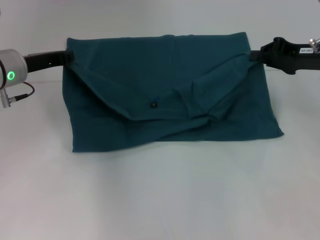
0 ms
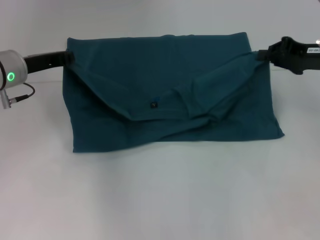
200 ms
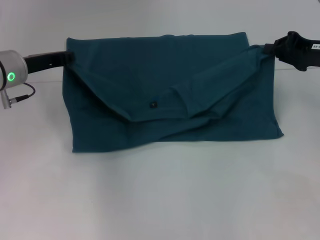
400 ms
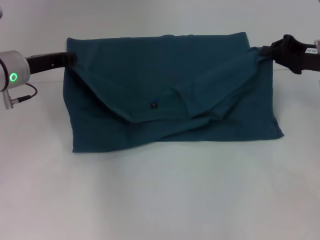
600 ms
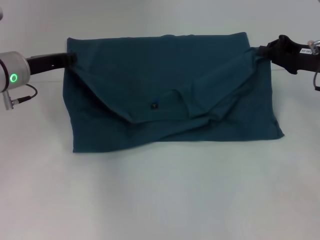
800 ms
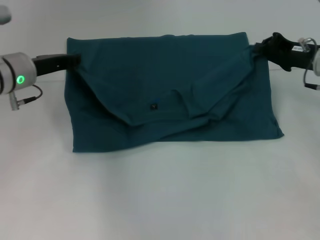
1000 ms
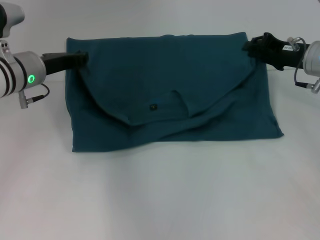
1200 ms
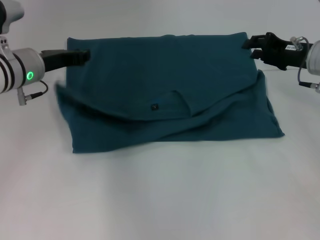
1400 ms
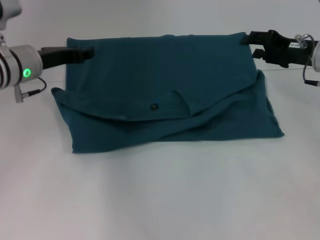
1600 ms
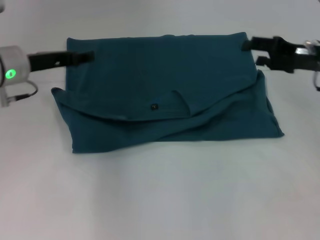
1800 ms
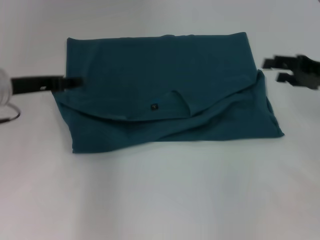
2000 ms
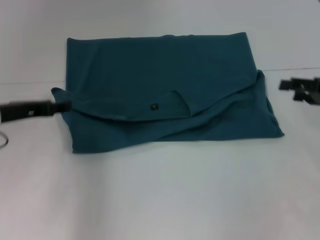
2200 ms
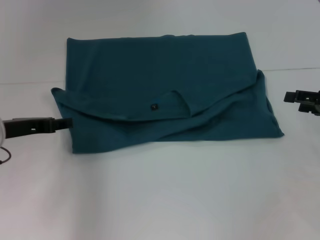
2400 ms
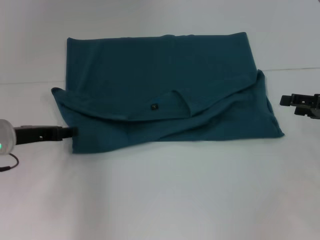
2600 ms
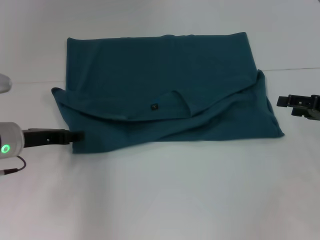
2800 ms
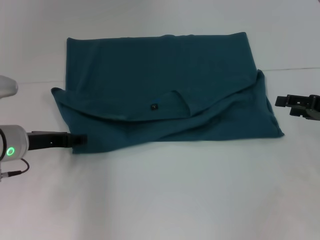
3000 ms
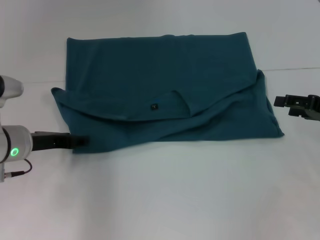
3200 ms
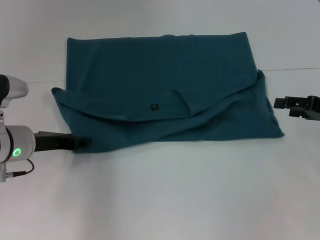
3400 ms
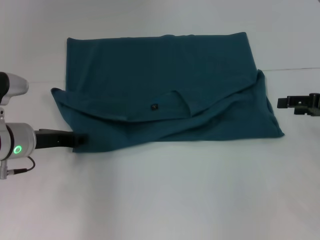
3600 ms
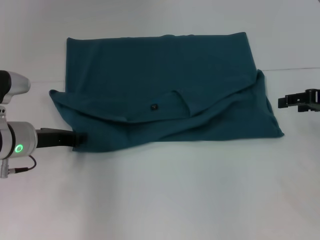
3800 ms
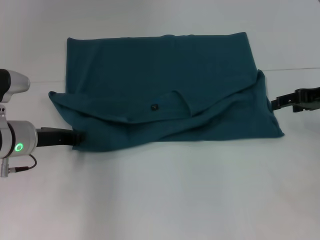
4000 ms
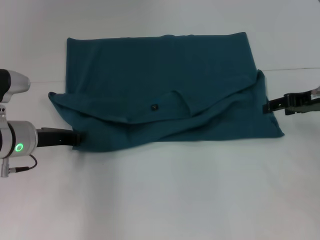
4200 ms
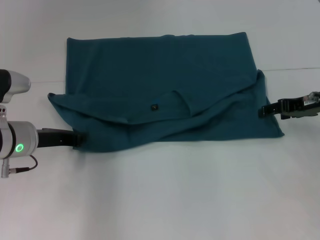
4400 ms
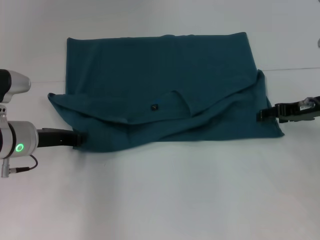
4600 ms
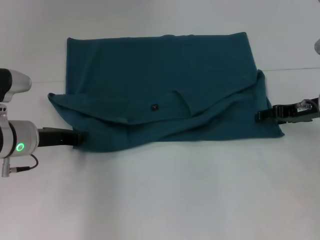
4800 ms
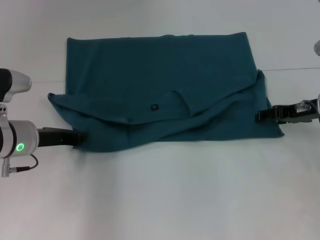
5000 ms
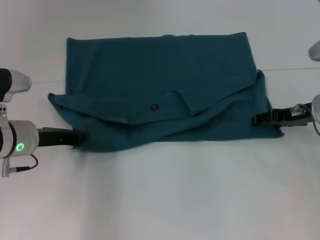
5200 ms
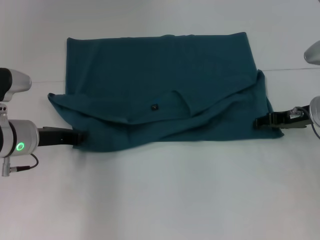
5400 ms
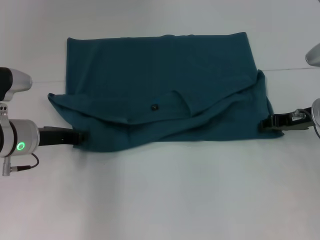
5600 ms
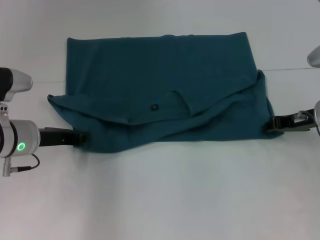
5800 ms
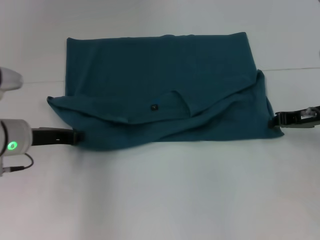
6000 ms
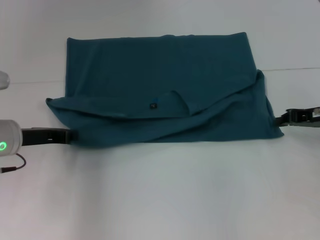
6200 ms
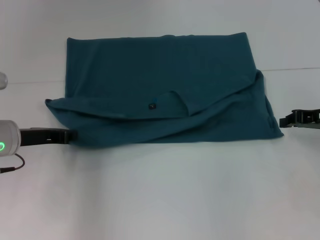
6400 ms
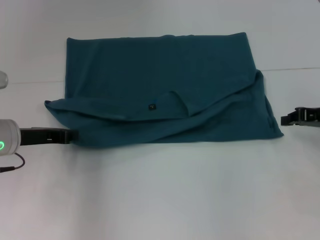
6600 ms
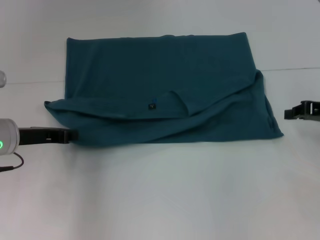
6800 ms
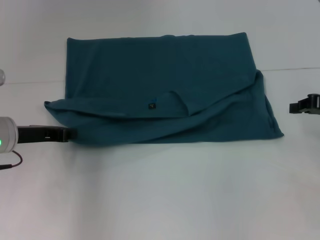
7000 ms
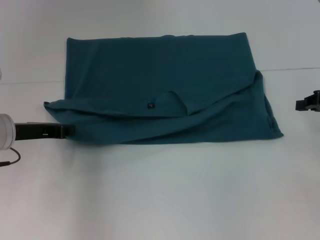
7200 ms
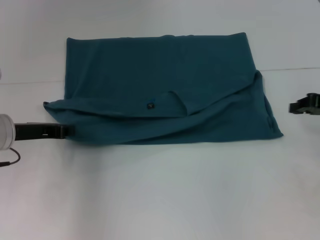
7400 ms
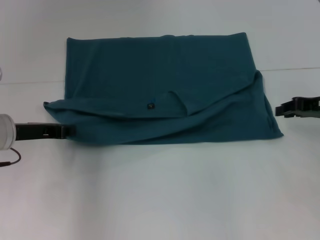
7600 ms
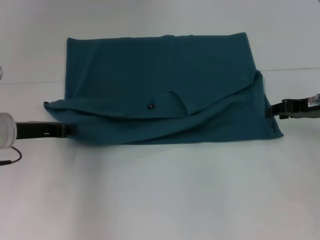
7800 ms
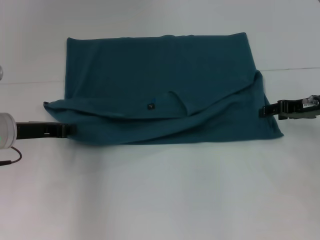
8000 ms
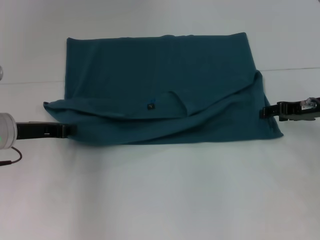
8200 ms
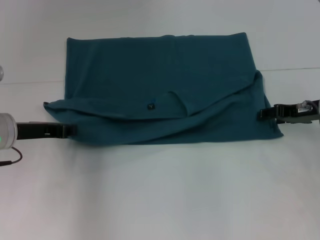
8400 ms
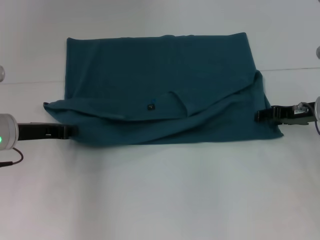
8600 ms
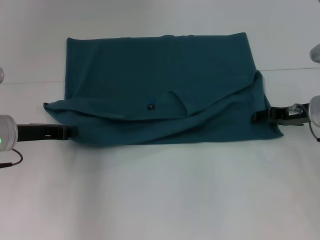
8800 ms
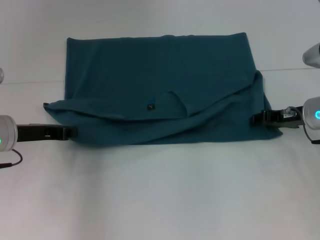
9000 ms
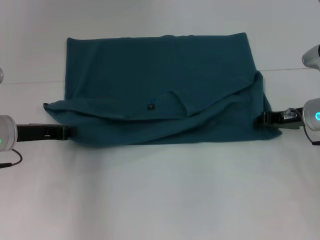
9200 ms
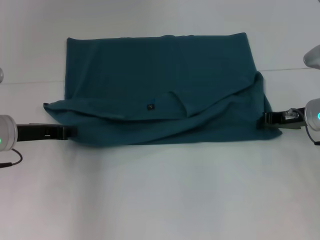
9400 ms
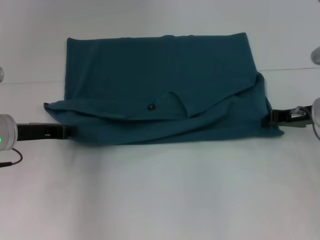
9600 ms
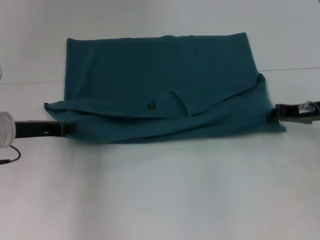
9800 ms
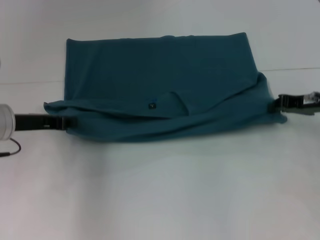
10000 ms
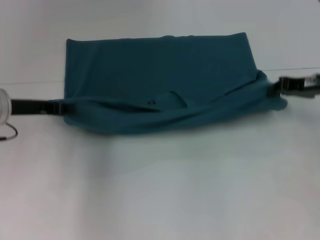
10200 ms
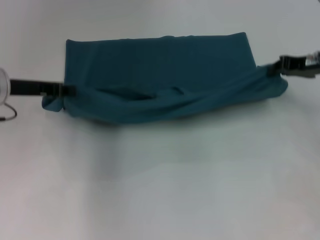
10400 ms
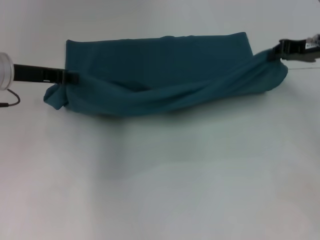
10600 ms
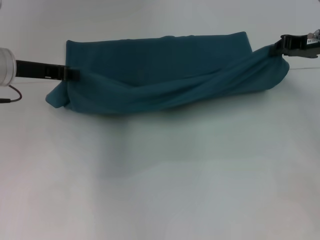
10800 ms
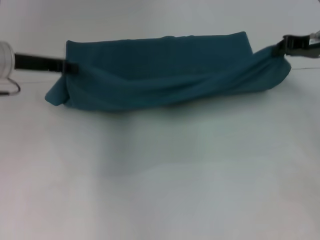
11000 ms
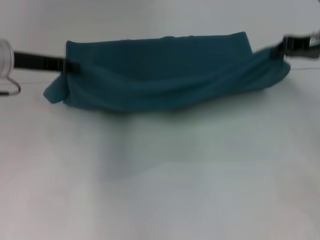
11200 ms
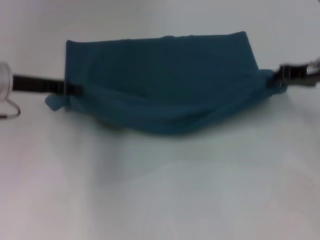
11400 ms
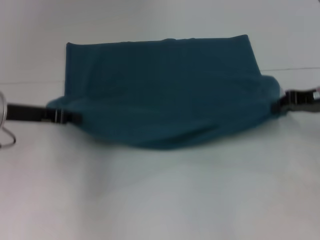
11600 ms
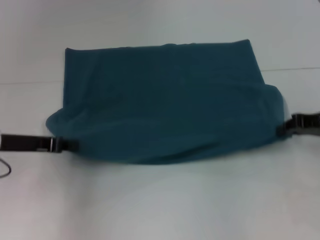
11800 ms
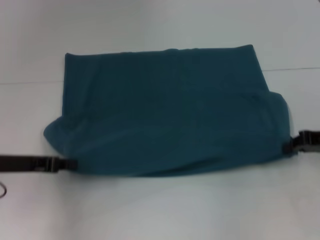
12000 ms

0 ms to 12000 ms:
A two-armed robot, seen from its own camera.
0 ms to 1600 ms: The left gripper opens up. Meanwhile the right gripper opens its fingers.
1600 ms to 3000 ms: The right gripper moves backward and to the right, some 10 cm. Meanwhile the left gripper moves backward and downward, some 10 cm.
3000 ms to 4400 ms: The left gripper closes up. The right gripper heads forward and to the left, covering approximately 10 cm.
4400 ms to 6000 ms: The right gripper closes its fingers.
7600 ms to 9000 ms: The right gripper shifts by some 5 cm, and opens its fingers.
9000 ms to 10400 ms: The grippers both shift upward by approximately 10 cm. The right gripper closes.
10400 ms to 12000 ms: The grippers both shift backward and downward by approximately 10 cm.

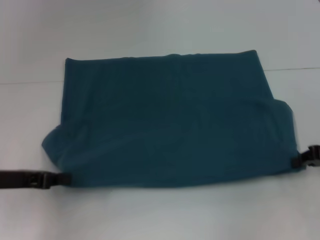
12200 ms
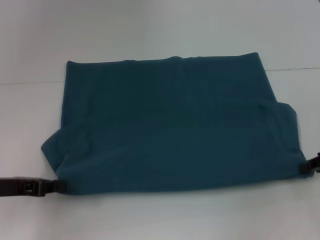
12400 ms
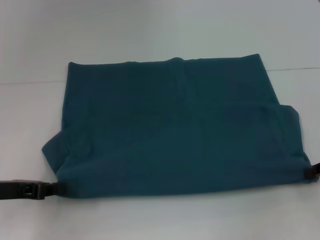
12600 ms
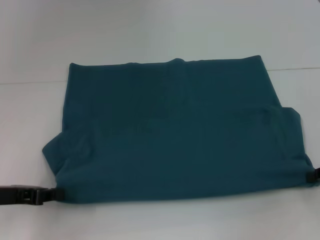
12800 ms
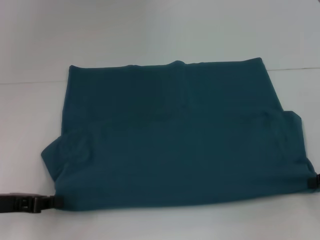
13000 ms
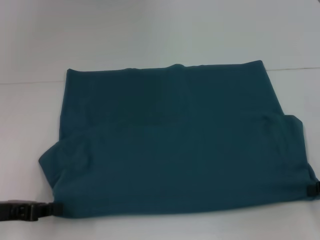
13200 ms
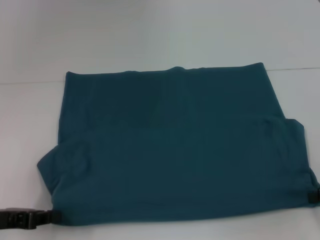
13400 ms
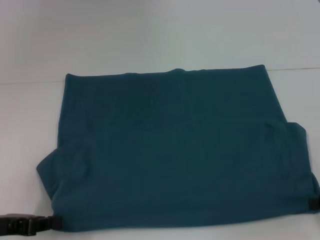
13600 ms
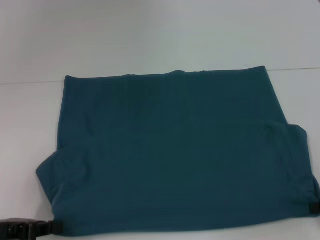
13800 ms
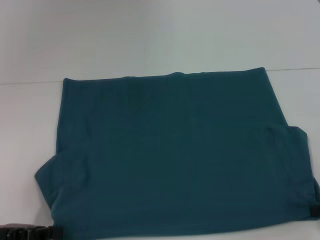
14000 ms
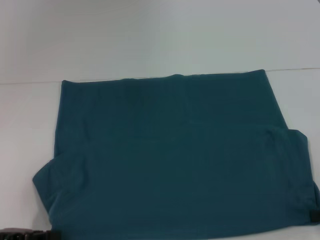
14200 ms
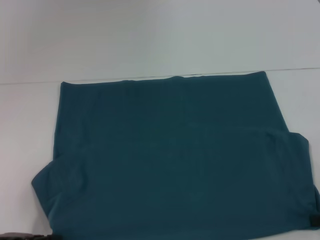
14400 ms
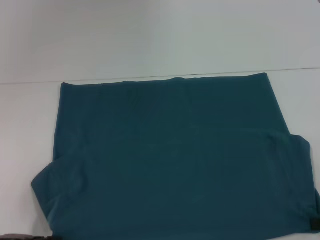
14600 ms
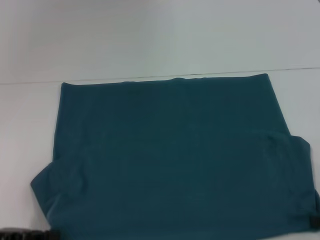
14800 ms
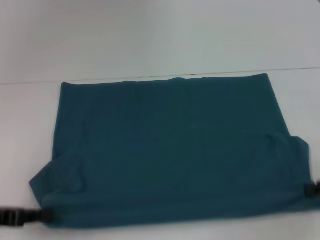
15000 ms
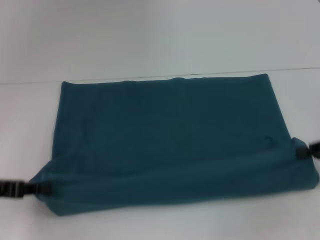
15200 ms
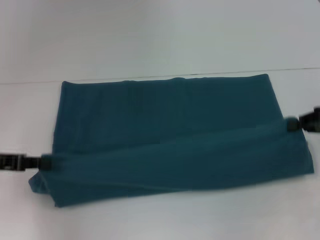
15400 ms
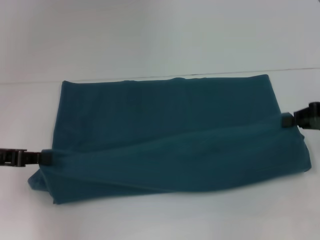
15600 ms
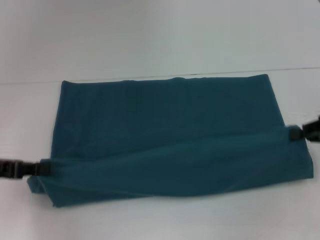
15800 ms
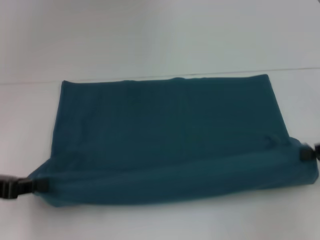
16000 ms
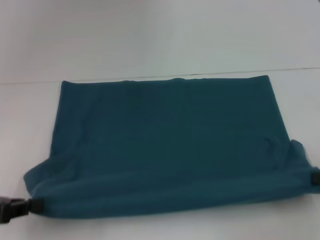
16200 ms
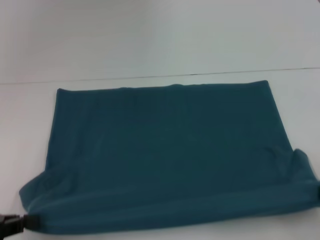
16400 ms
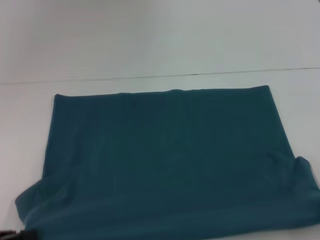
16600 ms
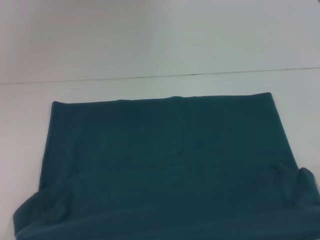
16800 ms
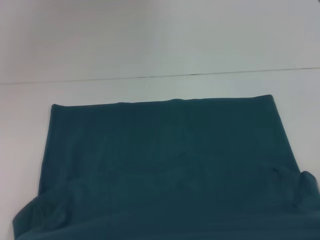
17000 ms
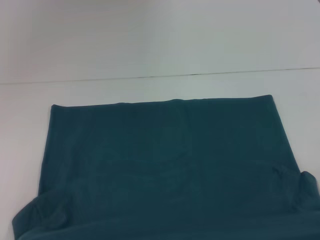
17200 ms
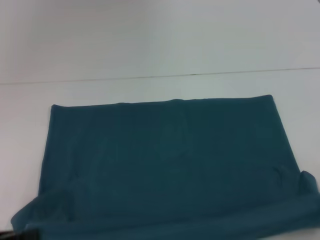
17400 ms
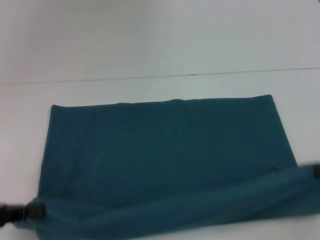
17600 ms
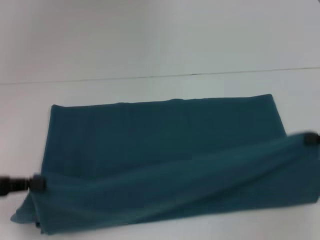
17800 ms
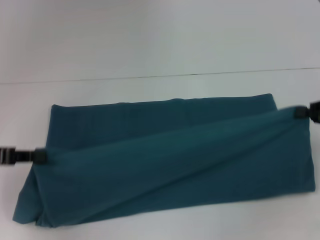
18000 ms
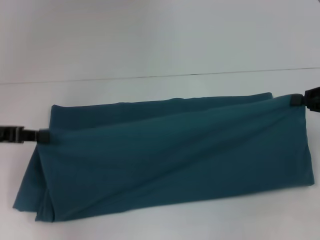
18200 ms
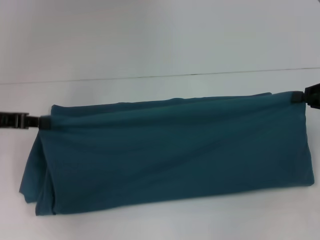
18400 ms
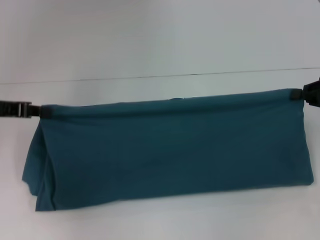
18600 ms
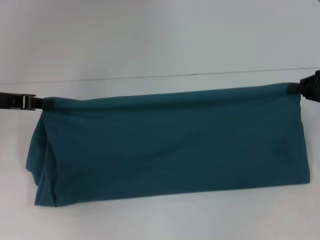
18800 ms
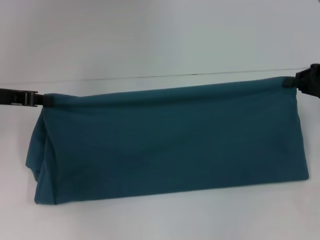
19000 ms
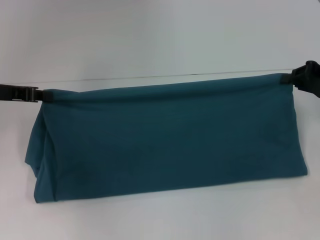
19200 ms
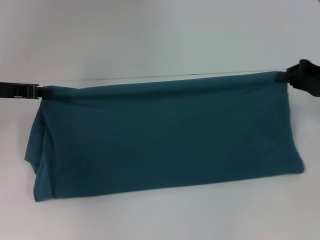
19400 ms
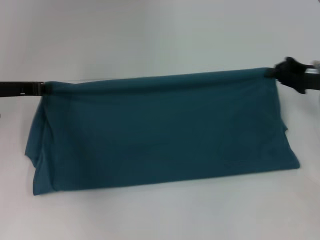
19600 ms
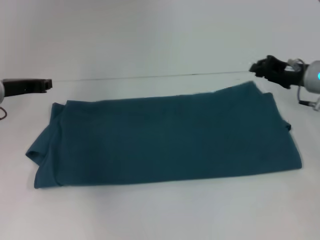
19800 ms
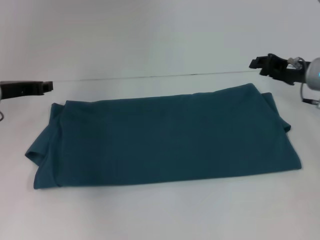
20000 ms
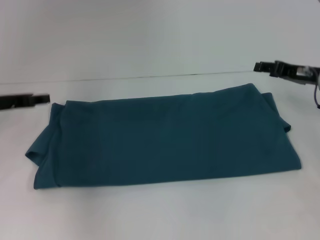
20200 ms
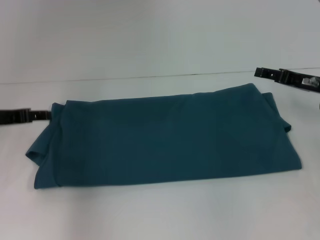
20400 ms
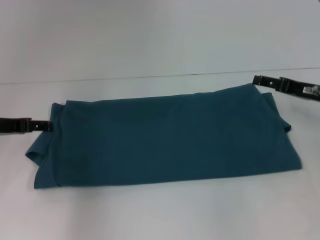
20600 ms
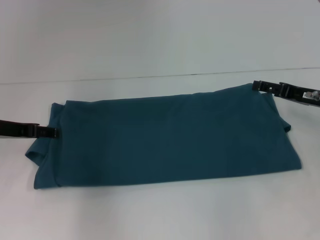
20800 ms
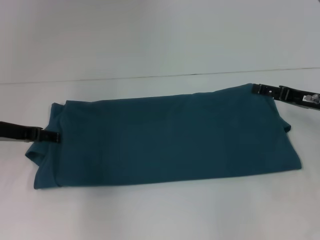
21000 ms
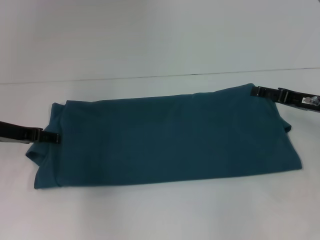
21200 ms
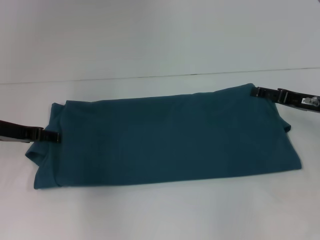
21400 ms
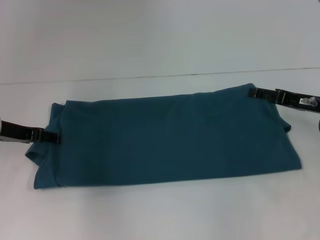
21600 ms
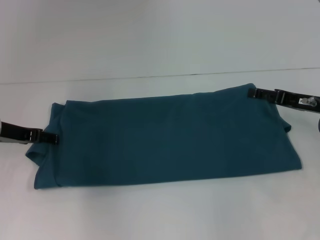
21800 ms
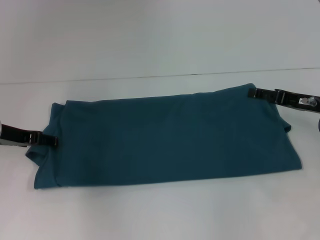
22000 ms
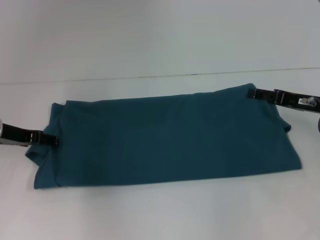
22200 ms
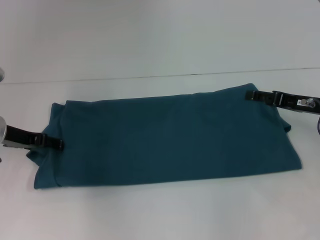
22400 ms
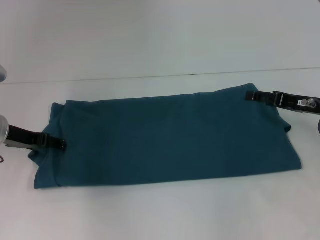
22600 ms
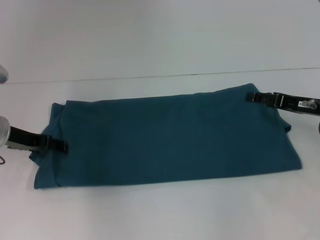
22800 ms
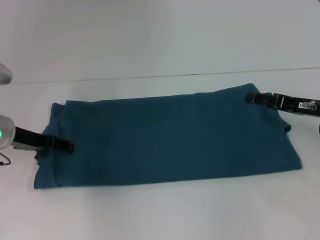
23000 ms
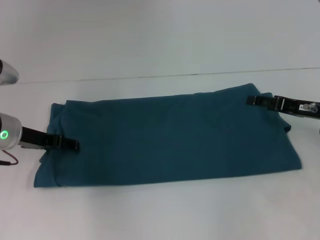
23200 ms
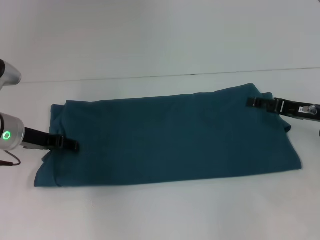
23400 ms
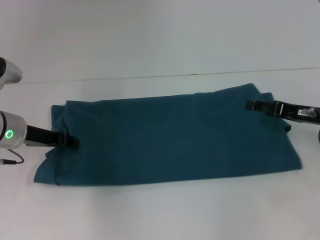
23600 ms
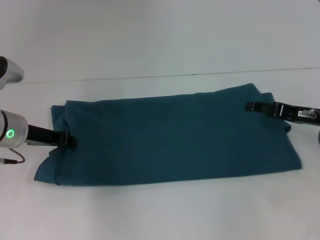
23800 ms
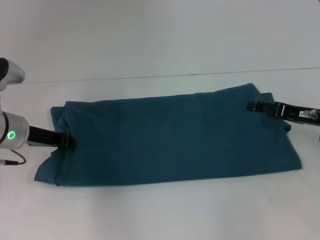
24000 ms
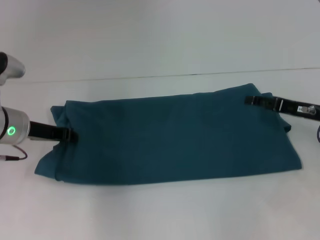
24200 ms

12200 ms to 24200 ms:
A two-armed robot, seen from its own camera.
Step, 12200 ms to 16800 ms: Pull the clothes with your left hand.
Step, 12200 ms to 16800 ms: Pull the clothes with your right hand.
Step, 17000 ms to 19600 ms: Fold the clothes to the left.
12200 ms to 13800 ms: The grippers both shift backward by about 5 cm.
13800 ms to 15200 ms: The left gripper moves roughly 5 cm. The right gripper changes place by approximately 5 cm.
15200 ms to 16600 ms: The two grippers go about 10 cm backward.
16600 ms to 18200 ms: The grippers both shift forward by roughly 15 cm.
18200 ms to 19800 ms: The right gripper goes about 10 cm to the left and forward, while the left gripper moves forward, roughly 10 cm.
19800 ms to 21200 ms: The left gripper opens its fingers. The right gripper is displaced backward by roughly 5 cm, and opens up.
21200 ms to 22600 ms: The grippers move only a little.
22600 ms to 24200 ms: The left gripper closes its fingers.
